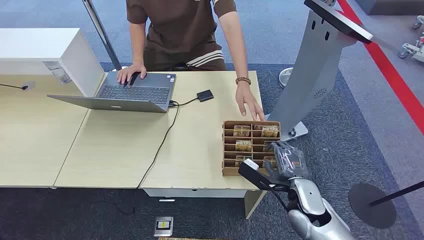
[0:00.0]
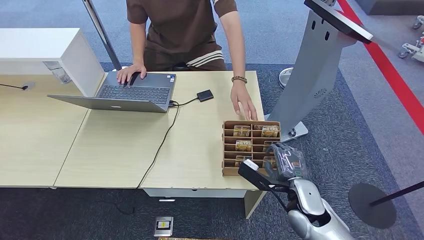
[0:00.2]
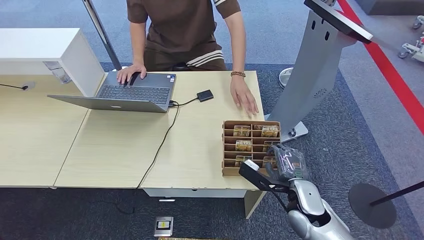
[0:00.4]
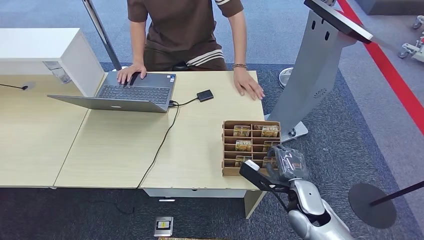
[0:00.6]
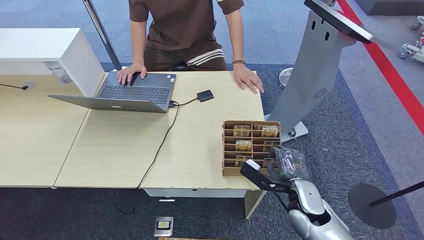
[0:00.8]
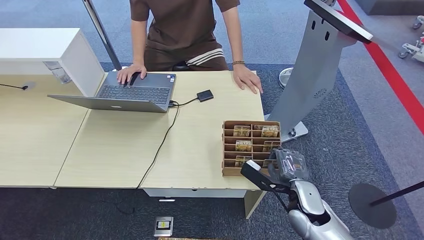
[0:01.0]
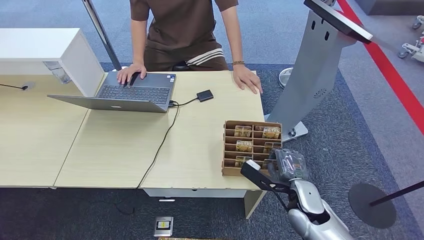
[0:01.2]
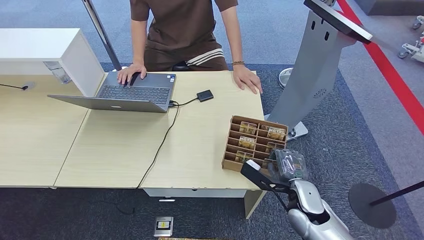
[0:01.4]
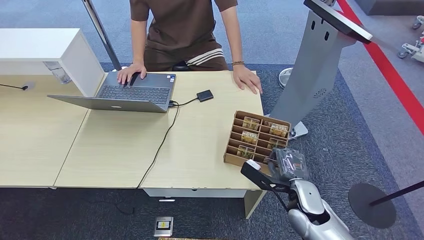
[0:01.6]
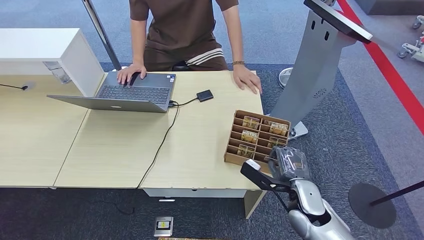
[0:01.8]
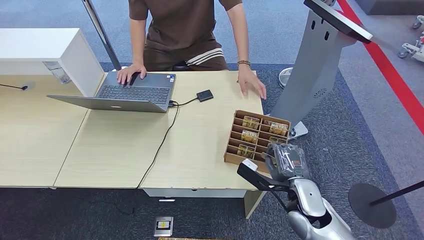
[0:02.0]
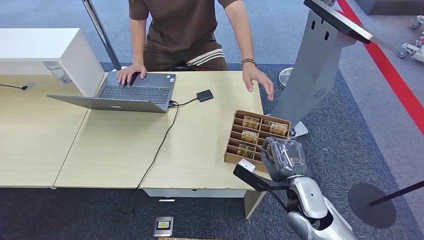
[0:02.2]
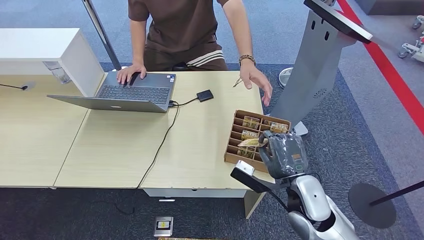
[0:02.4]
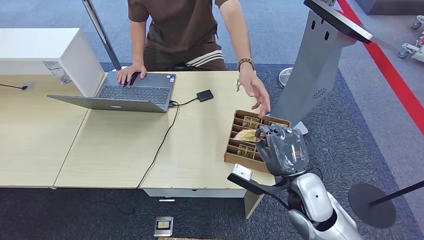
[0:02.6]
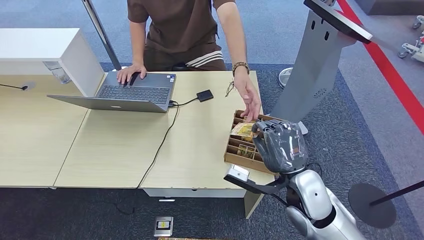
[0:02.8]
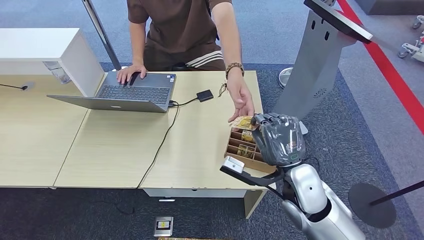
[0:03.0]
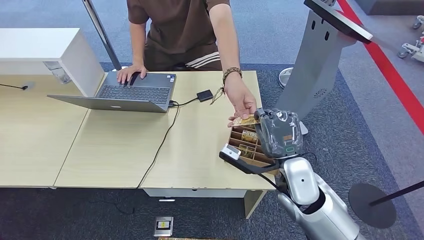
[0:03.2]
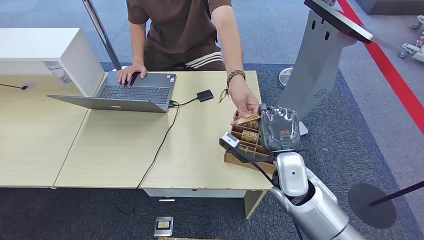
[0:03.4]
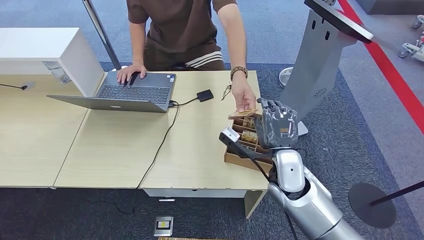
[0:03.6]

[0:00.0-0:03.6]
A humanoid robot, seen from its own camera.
Step, 0:00.0 to 0:02.0: Pick up the room card from the card holder.
Step, 0:02.2 to 0:03.6: Hand the room card to the target.
0:01.8 to 0:03.6: The right hand travels upward and to the left by roughly 10 cm.
